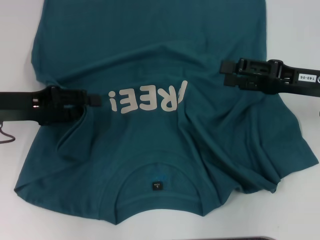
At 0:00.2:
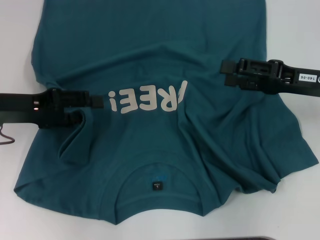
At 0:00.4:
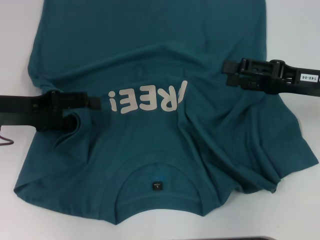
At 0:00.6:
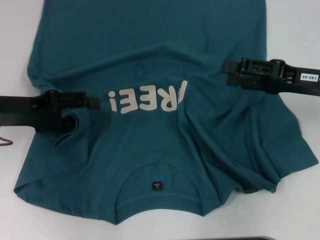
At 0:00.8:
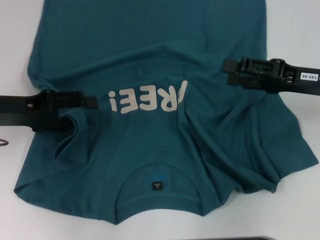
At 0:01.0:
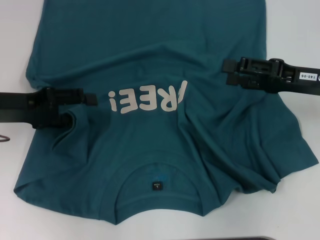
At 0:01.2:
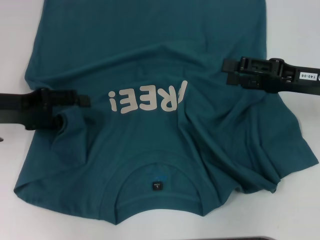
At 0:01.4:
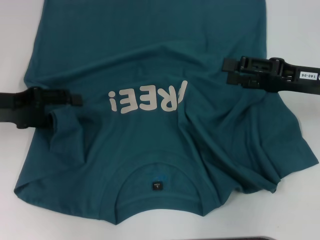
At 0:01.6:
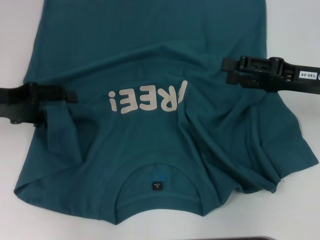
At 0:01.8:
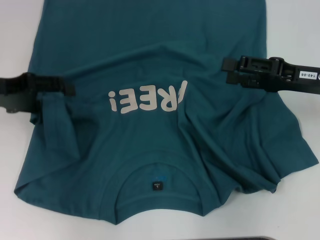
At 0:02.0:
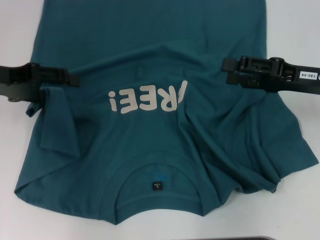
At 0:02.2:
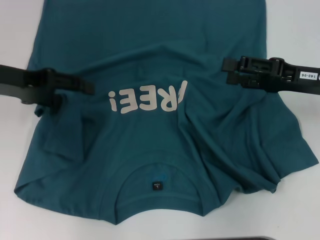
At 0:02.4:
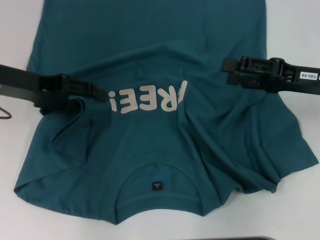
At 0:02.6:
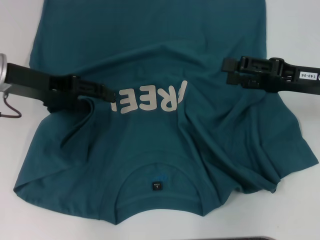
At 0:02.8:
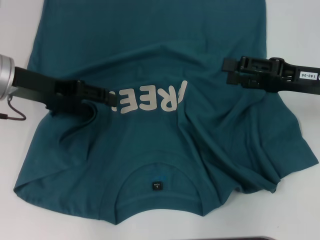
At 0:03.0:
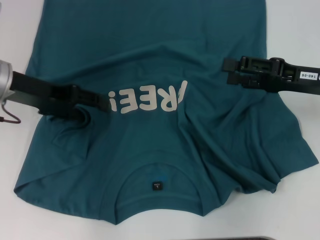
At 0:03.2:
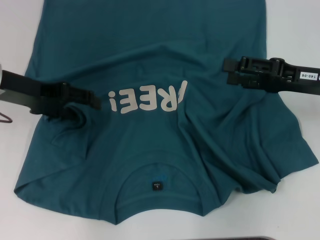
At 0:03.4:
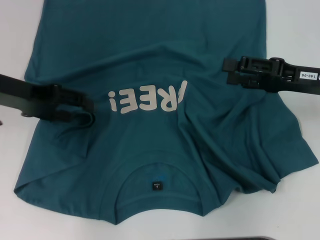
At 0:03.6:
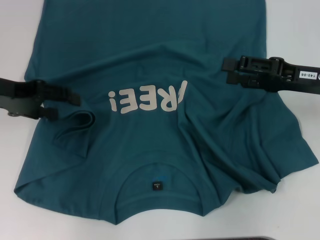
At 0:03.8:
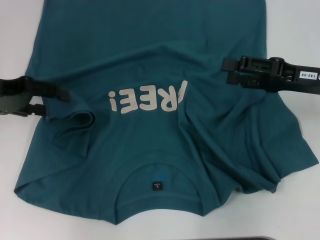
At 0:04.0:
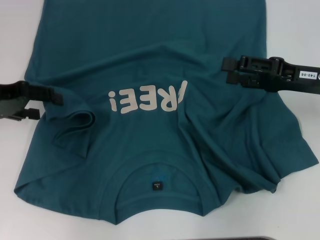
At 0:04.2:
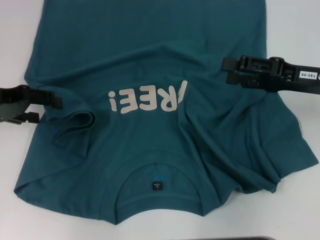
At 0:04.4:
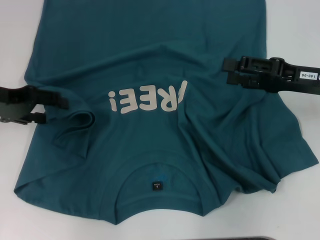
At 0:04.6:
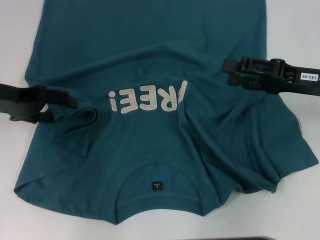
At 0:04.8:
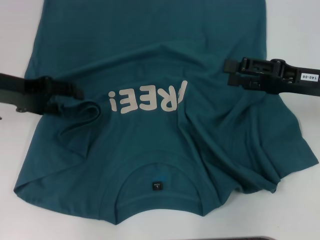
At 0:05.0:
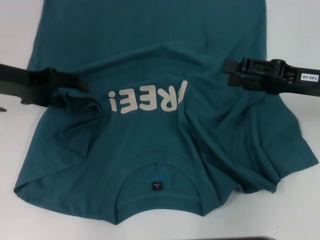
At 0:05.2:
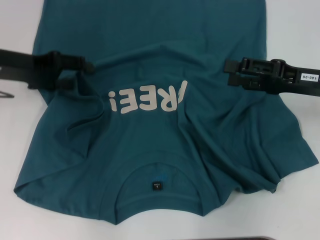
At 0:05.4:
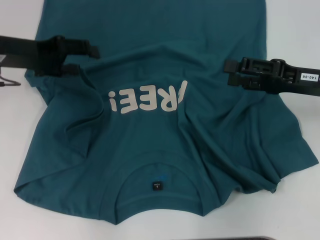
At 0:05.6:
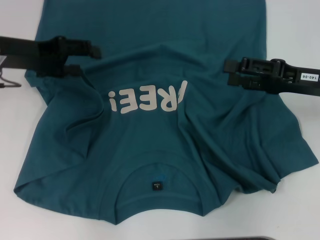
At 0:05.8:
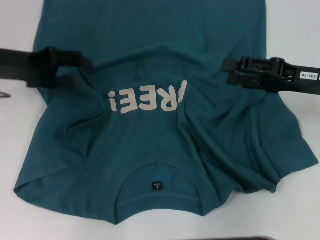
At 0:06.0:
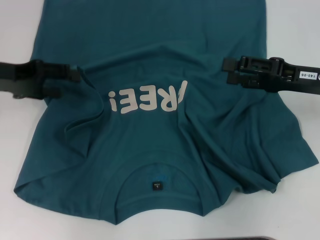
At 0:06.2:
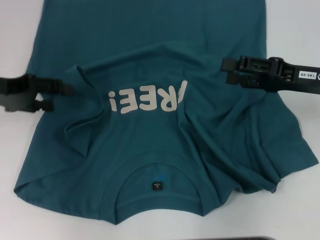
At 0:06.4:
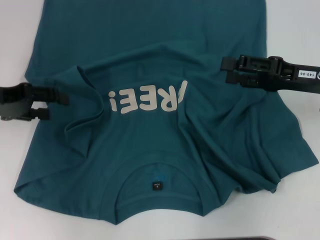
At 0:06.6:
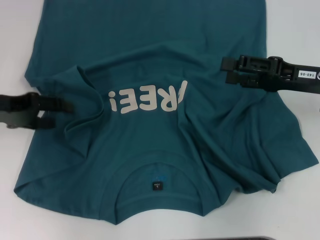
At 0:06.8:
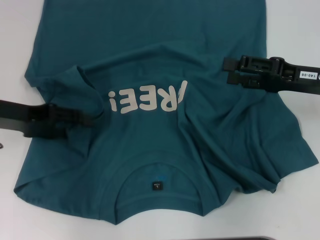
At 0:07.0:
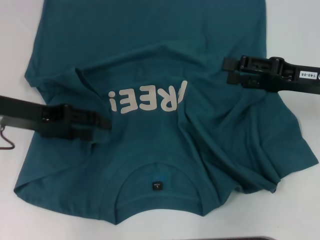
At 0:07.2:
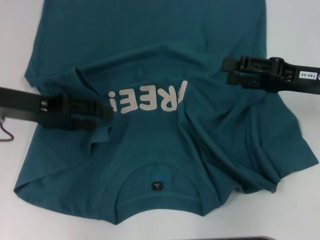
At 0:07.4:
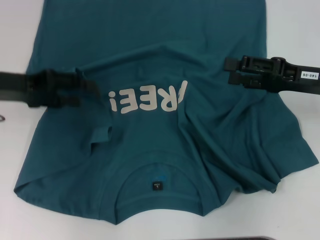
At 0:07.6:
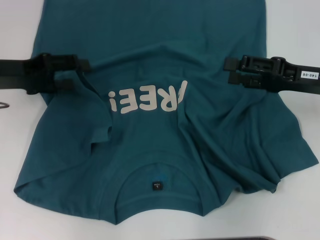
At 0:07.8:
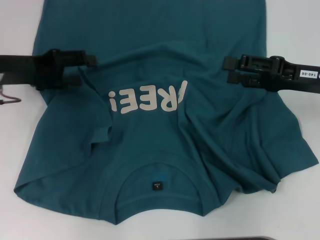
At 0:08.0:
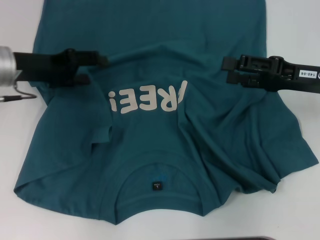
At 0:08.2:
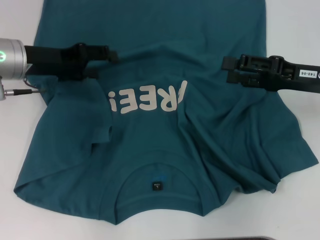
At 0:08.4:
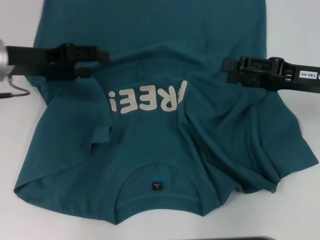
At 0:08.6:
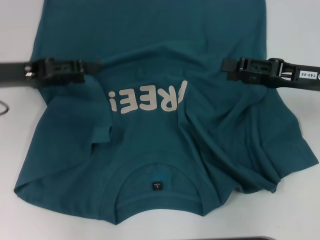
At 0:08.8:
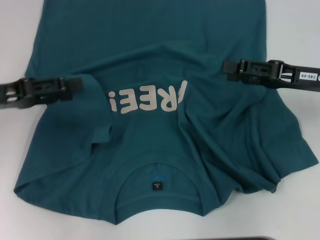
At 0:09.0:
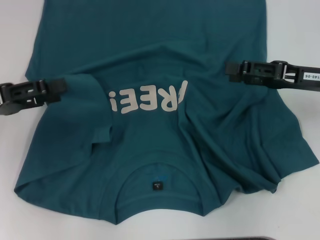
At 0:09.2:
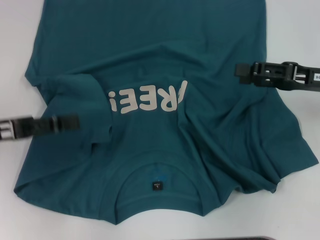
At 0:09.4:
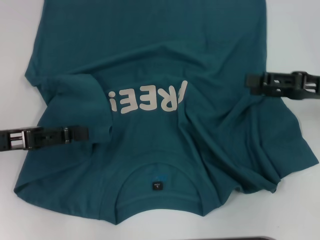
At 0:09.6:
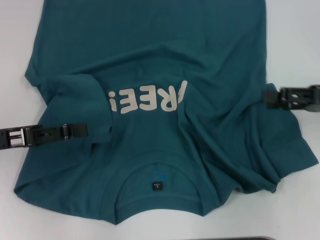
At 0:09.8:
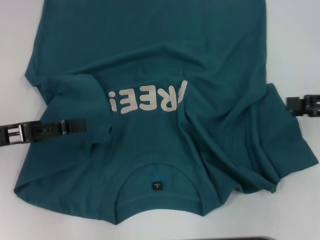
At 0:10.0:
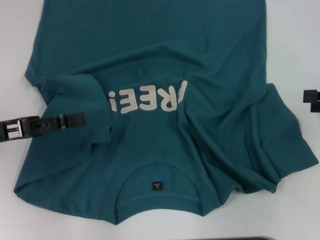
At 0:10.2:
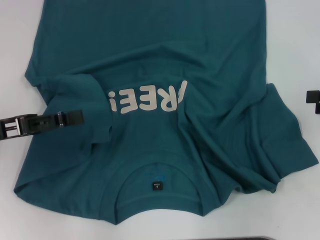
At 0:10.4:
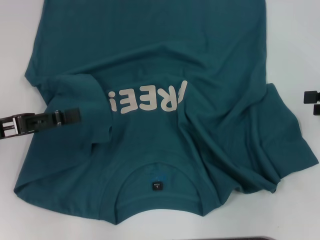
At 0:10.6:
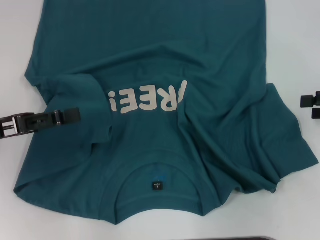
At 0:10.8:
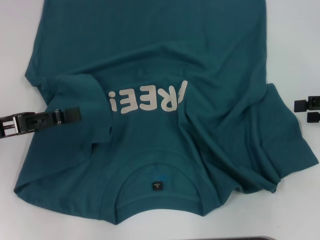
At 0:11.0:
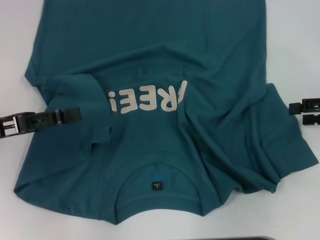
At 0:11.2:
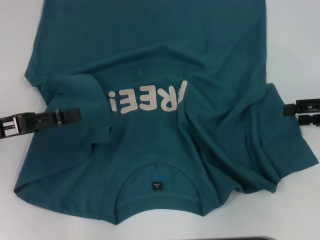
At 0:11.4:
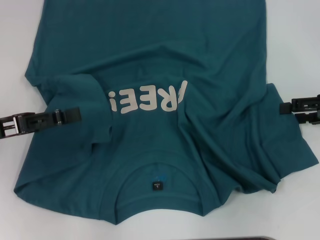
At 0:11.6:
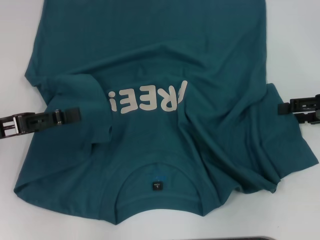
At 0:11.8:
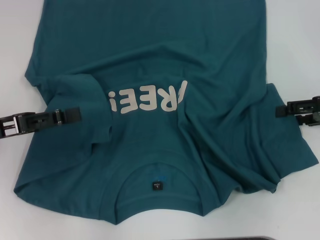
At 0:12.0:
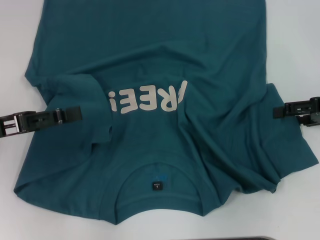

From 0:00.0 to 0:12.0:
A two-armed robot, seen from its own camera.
Step, from 0:00.0 to 0:08.2: Fold the bottom left sleeve with your left hand.
From 0:00.0 to 0:01.6: The left gripper opens its fingers.
From 0:01.6 to 0:03.0: The left gripper moves to the right, roughly 5 cm.
From 0:03.0 to 0:04.4: The left gripper moves to the left, approximately 5 cm.
From 0:04.4 to 0:06.0: There are only small adjustments of the grippers.
From 0:06.0 to 0:07.6: The grippers stay close to where they were, moving slightly.
From 0:07.6 to 0:09.0: The left gripper is displaced backward by some 5 cm.
From 0:09.0 to 0:10.4: The right gripper moves to the right, about 10 cm.
From 0:10.4 to 0:12.0: The right gripper moves about 5 cm.

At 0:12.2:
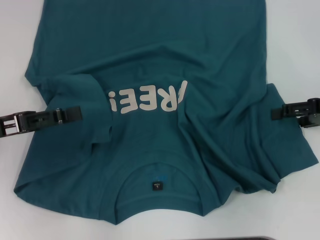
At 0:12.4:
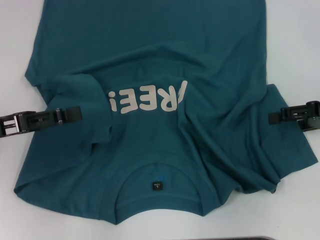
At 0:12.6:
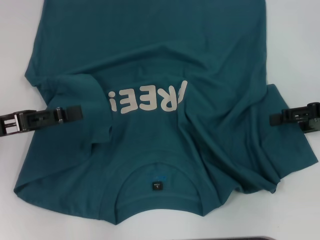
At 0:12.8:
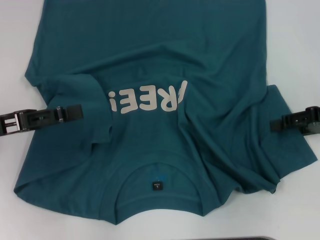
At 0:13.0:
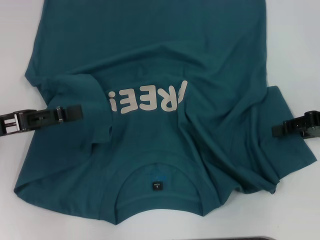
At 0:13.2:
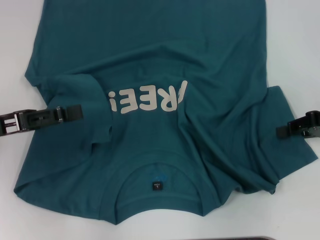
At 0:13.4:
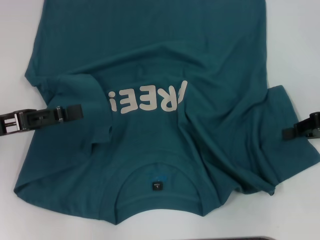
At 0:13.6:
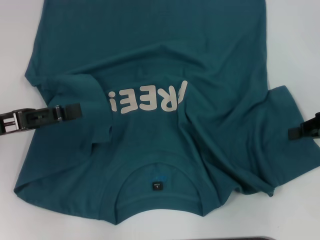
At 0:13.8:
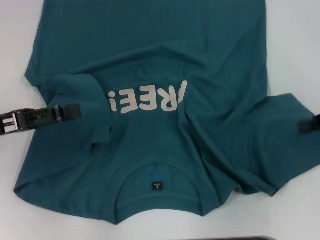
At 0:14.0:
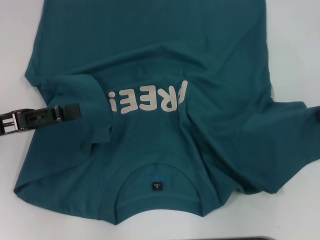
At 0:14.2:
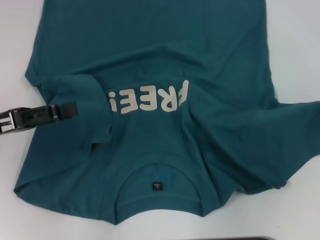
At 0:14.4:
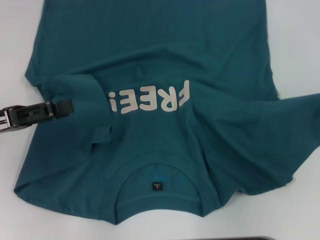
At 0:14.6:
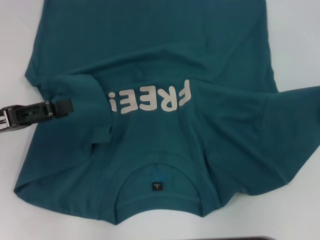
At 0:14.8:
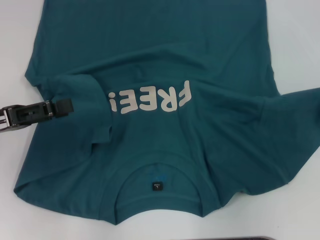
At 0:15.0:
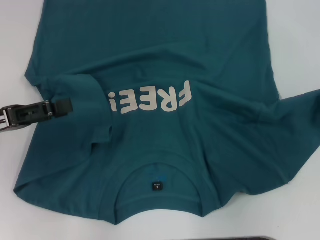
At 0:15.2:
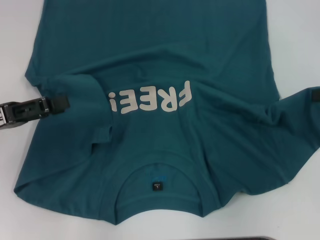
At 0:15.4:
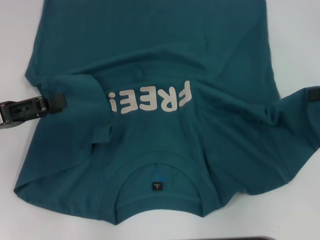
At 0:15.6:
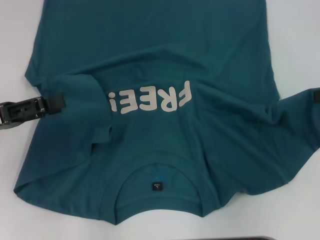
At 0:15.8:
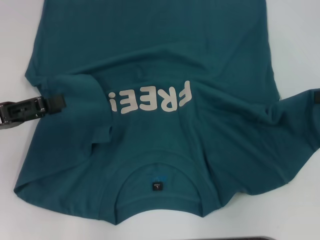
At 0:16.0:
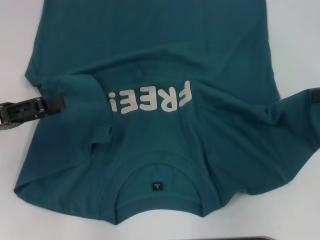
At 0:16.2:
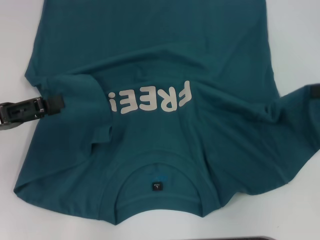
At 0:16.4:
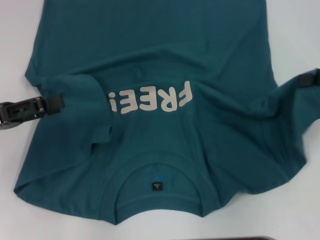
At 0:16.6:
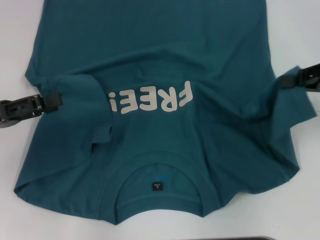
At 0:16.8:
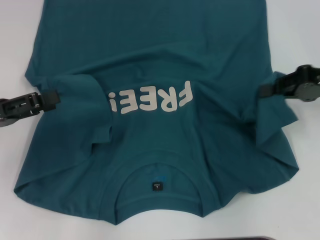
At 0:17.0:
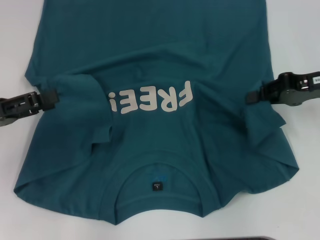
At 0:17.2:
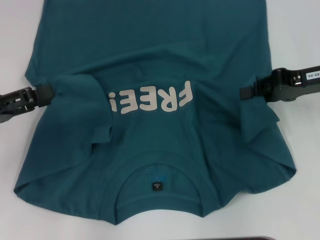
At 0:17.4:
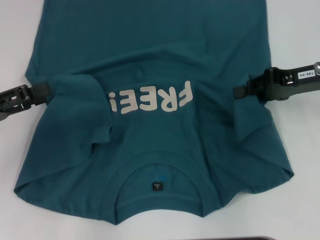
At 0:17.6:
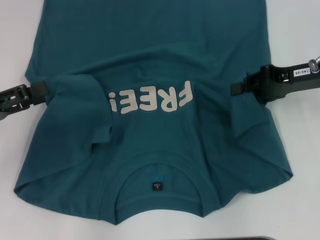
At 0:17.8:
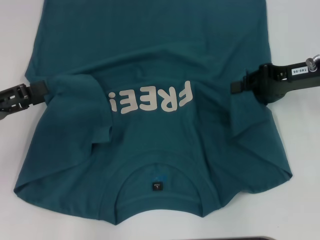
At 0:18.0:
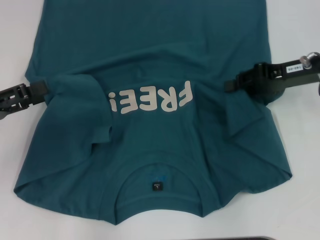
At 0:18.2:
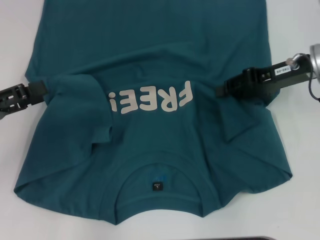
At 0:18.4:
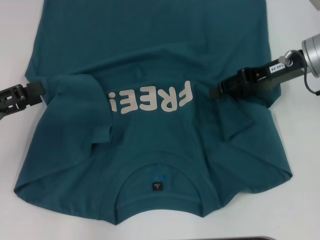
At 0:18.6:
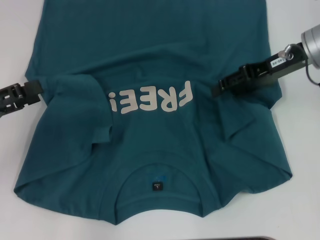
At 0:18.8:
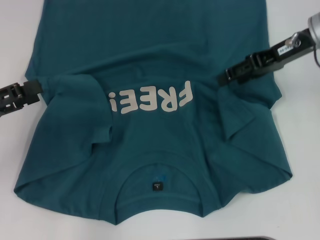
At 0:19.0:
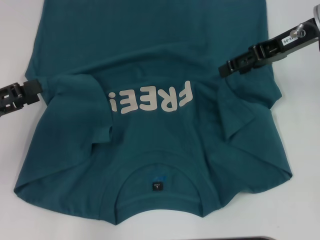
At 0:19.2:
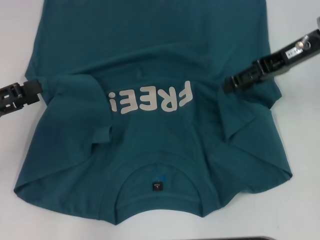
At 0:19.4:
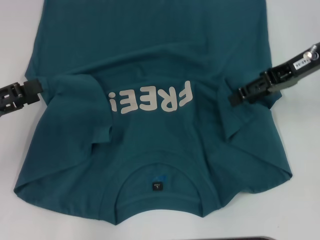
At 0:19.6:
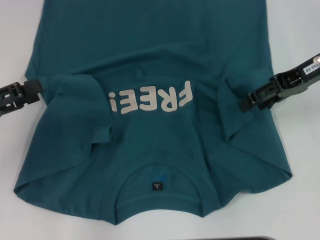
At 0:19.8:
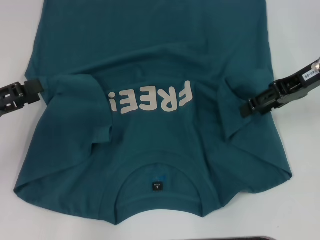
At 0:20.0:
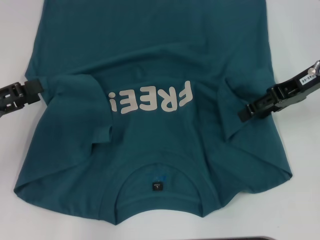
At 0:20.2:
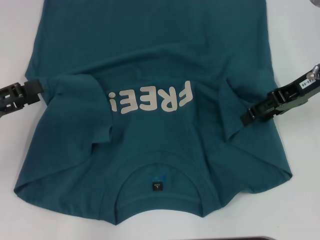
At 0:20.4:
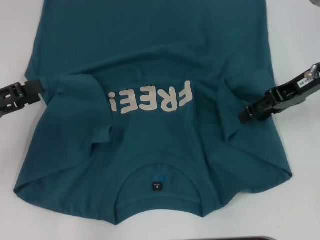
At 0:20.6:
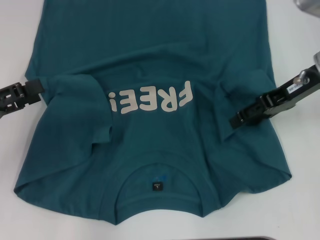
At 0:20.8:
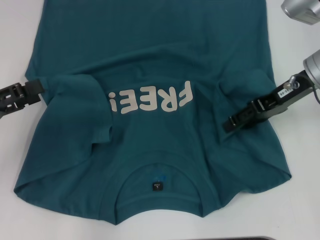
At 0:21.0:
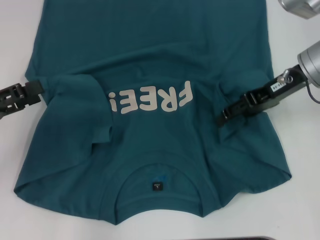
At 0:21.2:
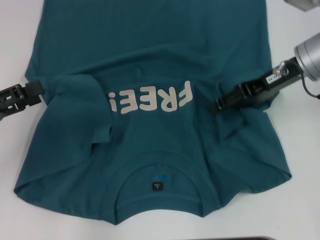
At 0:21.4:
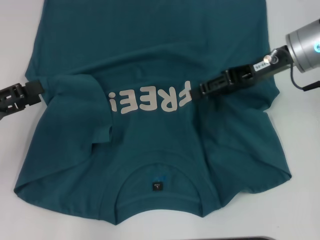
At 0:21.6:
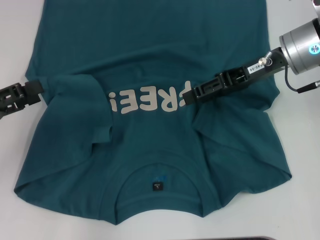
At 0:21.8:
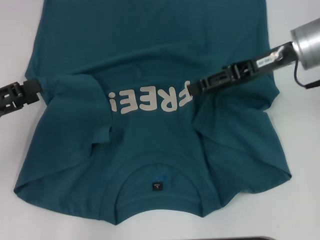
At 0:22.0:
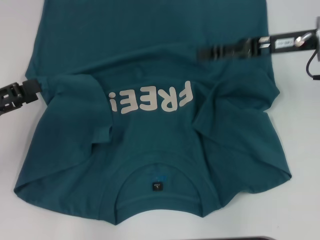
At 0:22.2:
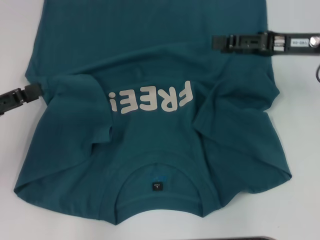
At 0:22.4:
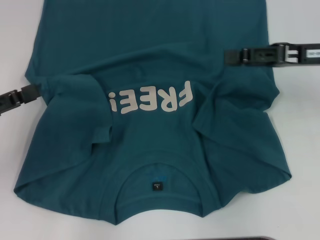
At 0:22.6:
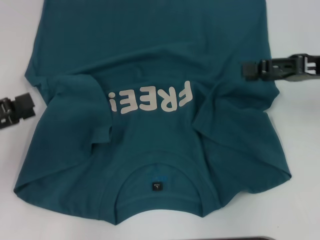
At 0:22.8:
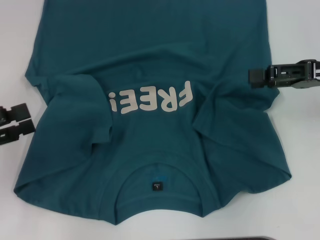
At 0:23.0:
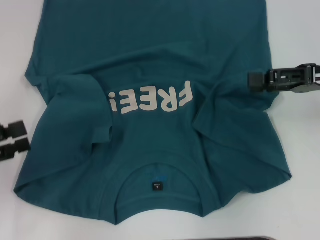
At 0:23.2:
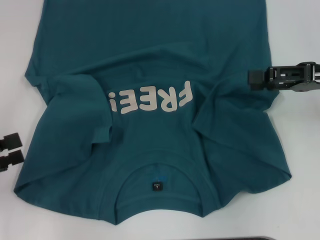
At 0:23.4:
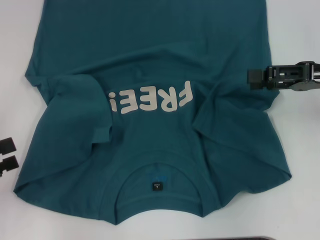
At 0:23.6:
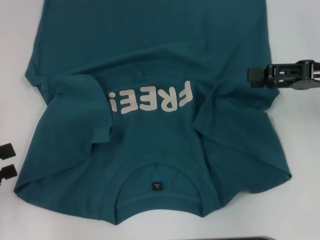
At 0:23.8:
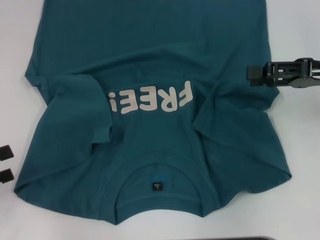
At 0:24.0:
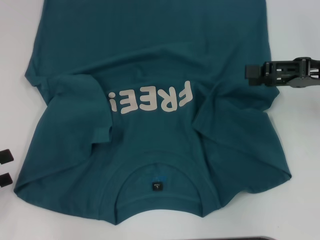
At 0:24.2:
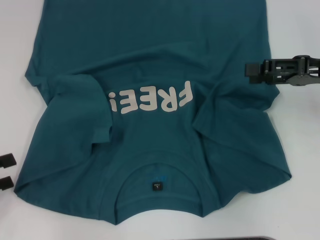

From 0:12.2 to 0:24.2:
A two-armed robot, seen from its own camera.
Step, from 0:12.2 to 0:21.8: Fold the bottom right sleeve to the right.
From 0:12.2 to 0:13.8: The right gripper closes its fingers.
From 0:13.8 to 0:16.6: The grippers move only a little.
From 0:16.6 to 0:18.2: The right gripper goes approximately 10 cm to the left and forward.
From 0:18.2 to 0:19.8: The right gripper opens its fingers.
From 0:19.8 to 0:21.2: The grippers stay close to where they were, moving slightly.
From 0:21.2 to 0:22.6: The right gripper goes some 10 cm to the right.
From 0:22.6 to 0:24.2: The left gripper shifts about 5 cm backward.
